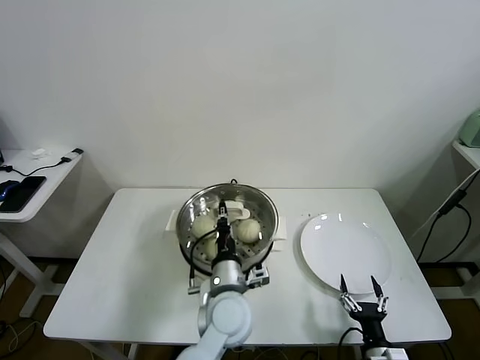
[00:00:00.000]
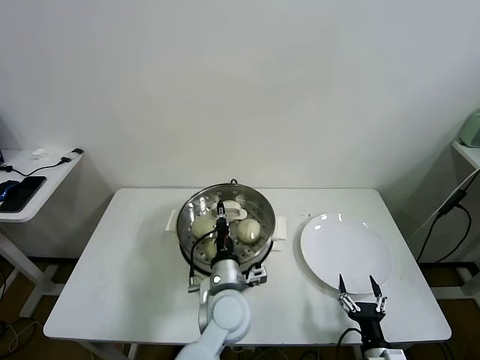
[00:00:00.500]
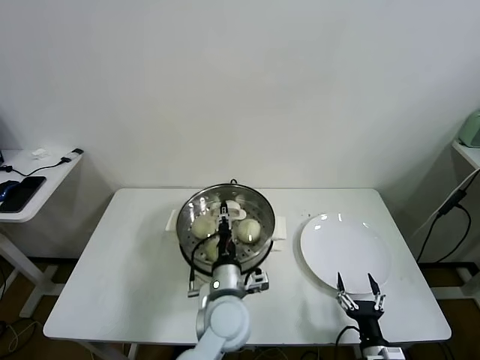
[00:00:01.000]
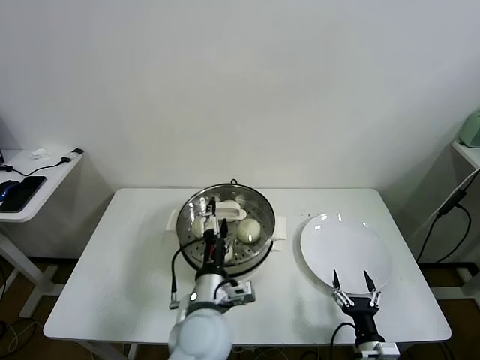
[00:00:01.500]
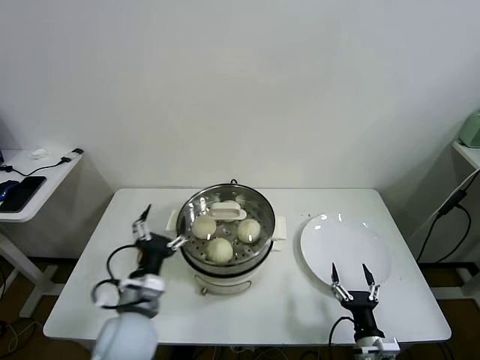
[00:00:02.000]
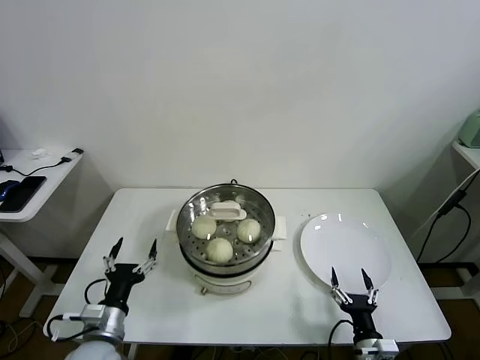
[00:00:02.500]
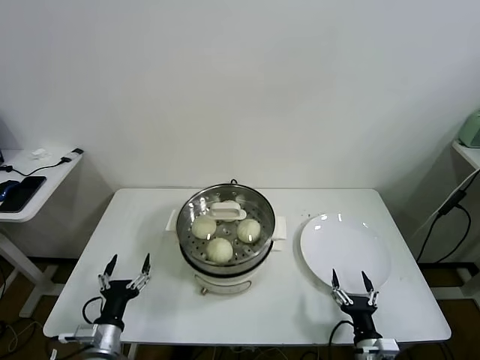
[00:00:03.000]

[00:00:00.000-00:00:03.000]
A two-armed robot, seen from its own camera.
Task of the whole recording: take steamed baozi put them in steamer.
00:00:00.000 to 00:00:01.500: The left gripper opens.
00:00:01.500 to 00:00:03.000: The left gripper shifts about 25 cm to the left and downward.
